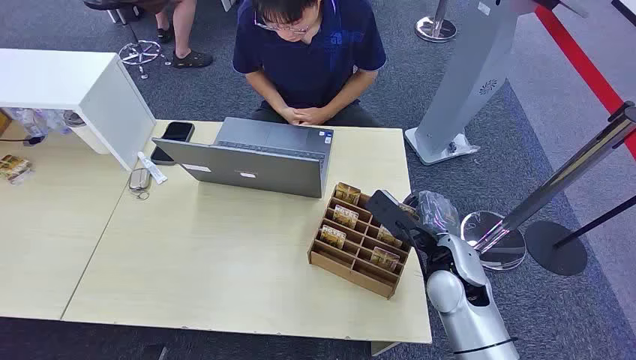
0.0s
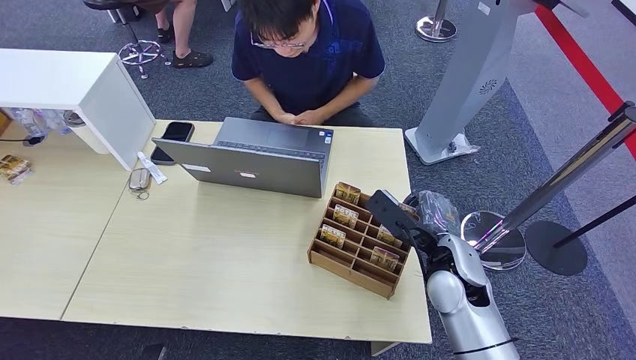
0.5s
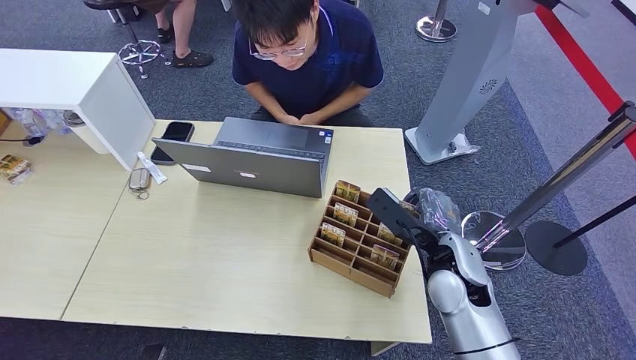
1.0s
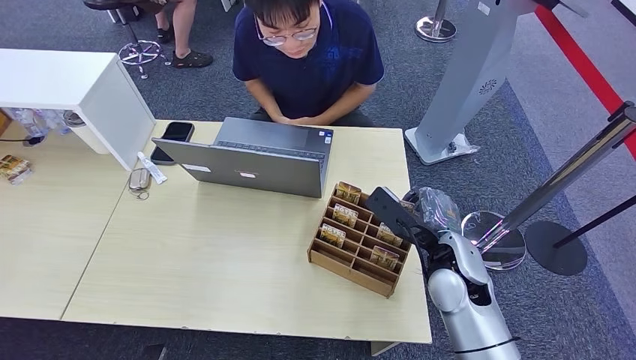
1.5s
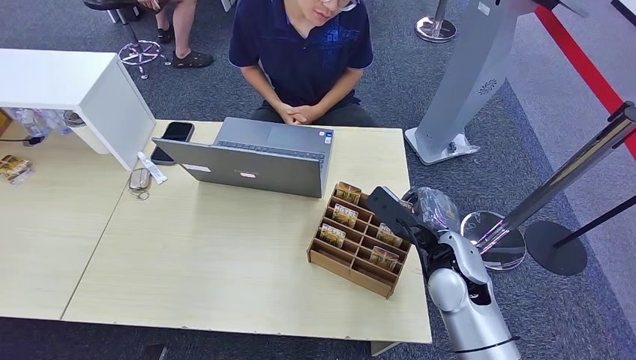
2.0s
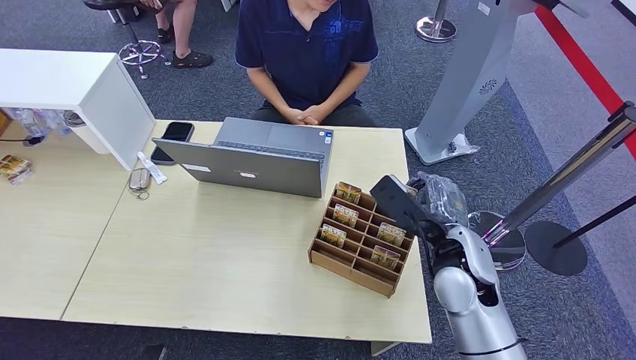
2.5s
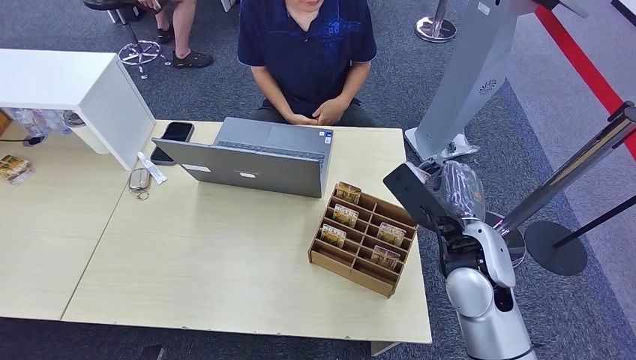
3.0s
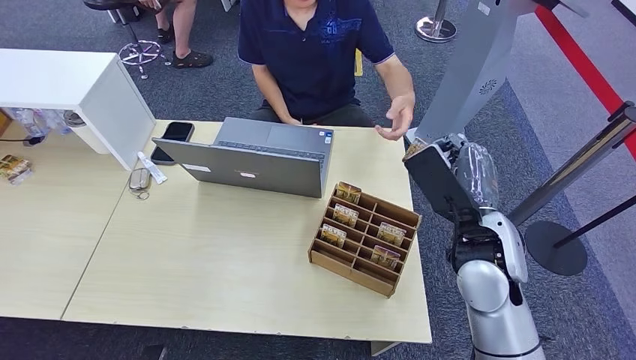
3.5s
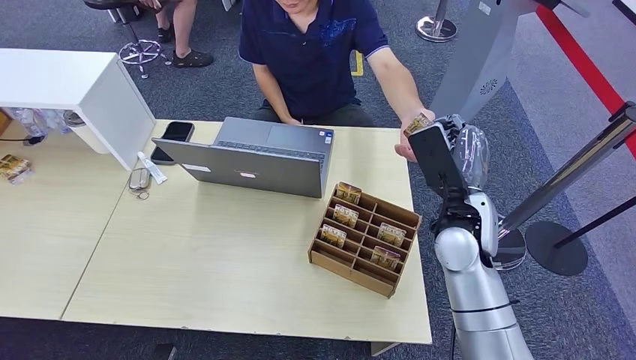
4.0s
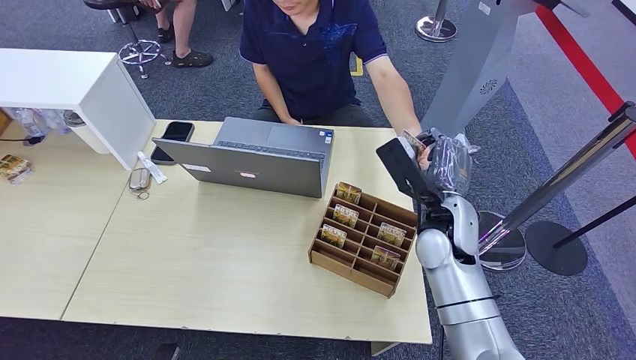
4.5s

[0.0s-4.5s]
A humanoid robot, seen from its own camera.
Step, 0.0s to 2.5s: Pick up the key card from the card box.
Step, 4.0s to 4.5s: Hand the key card to the target.
2.0s to 4.5s: The right hand moves roughly 5 cm.

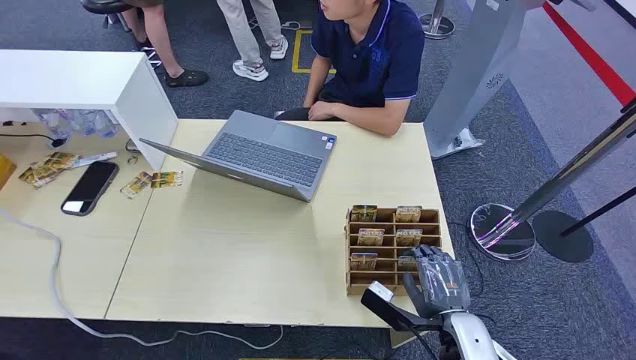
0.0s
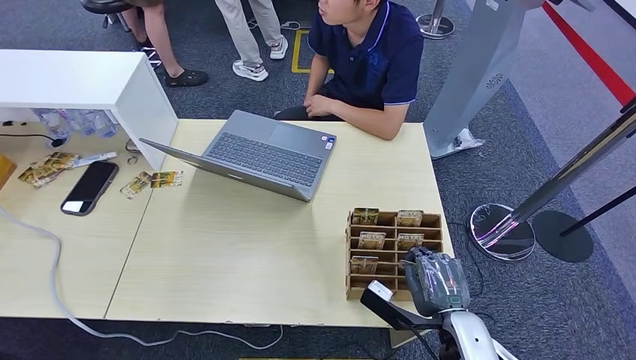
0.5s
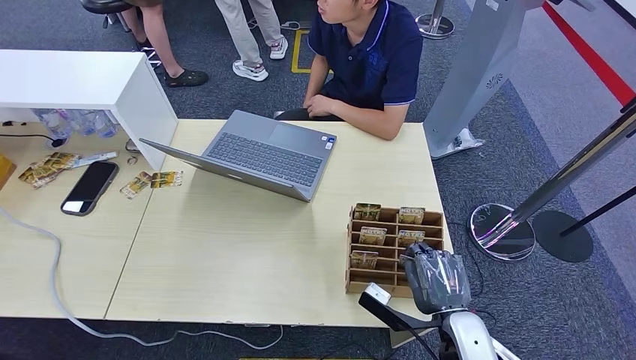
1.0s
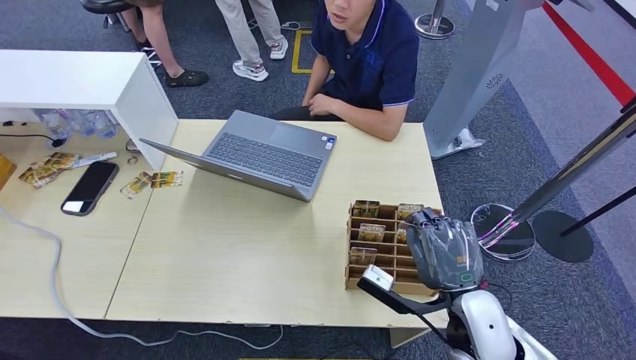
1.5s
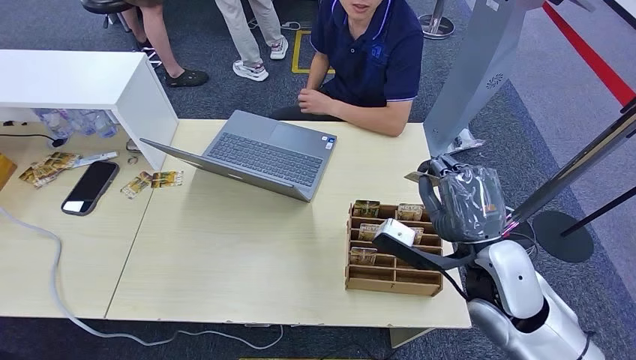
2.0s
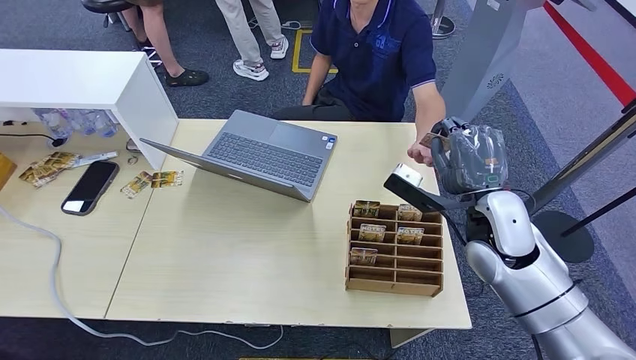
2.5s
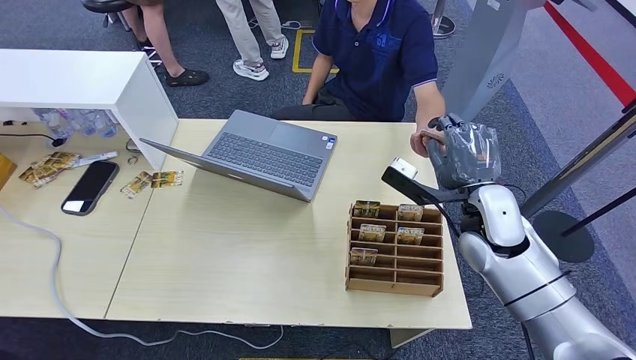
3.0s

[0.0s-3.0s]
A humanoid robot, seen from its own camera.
Step, 0.0s to 1.5s: Pick up the key card from the card box.
Step, 2.0s to 3.0s: Hand the key card to the target.
1.5s to 3.0s: The right hand heads forward, covering about 15 cm.

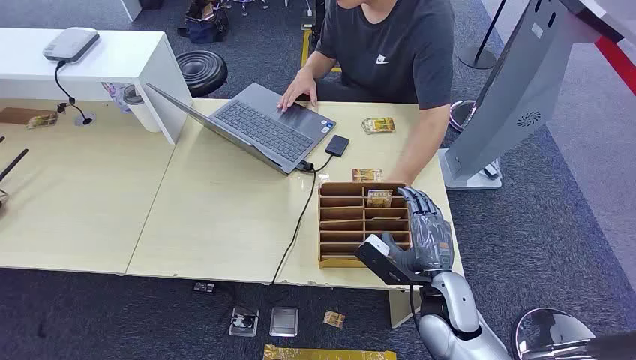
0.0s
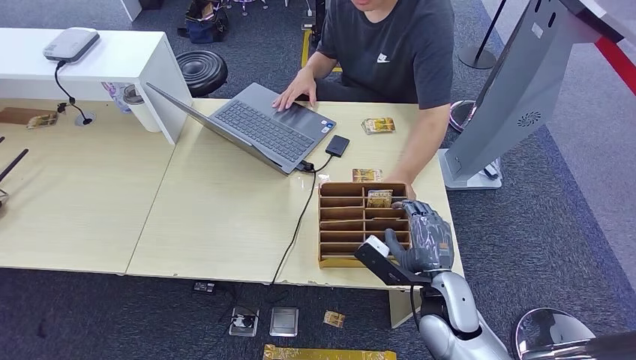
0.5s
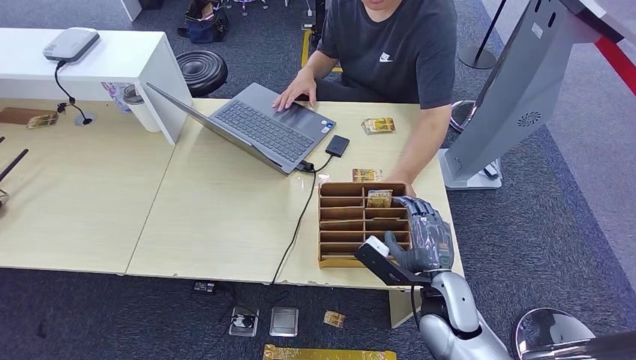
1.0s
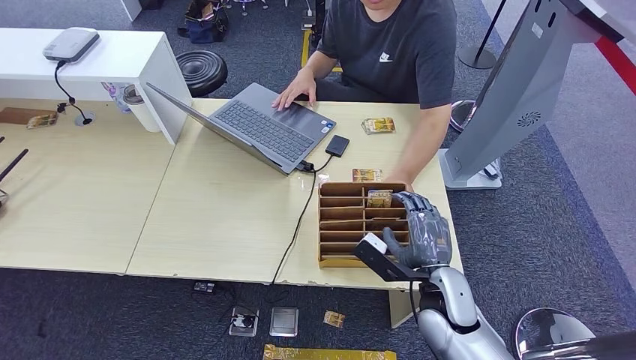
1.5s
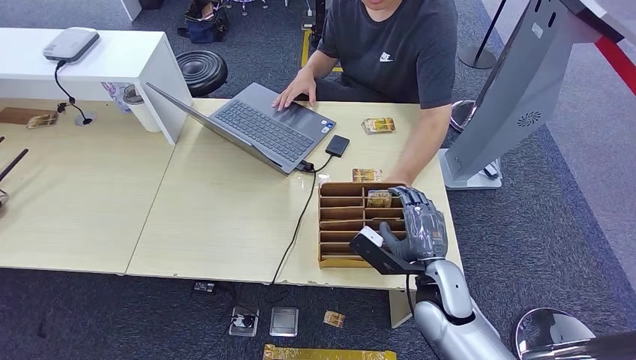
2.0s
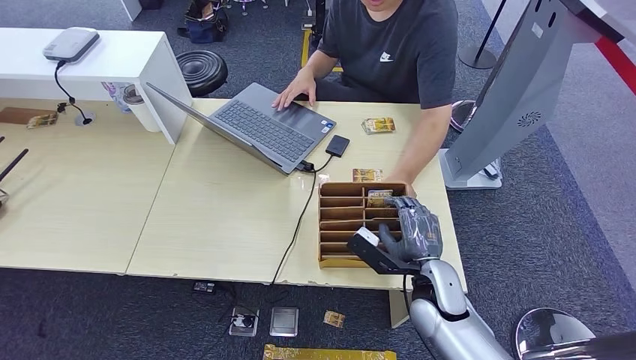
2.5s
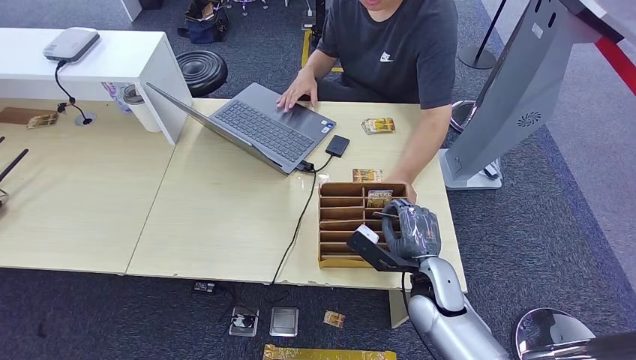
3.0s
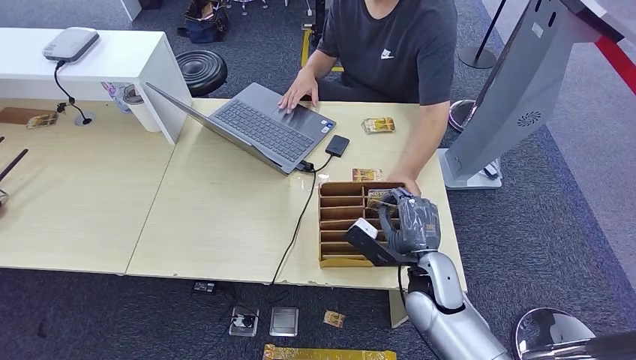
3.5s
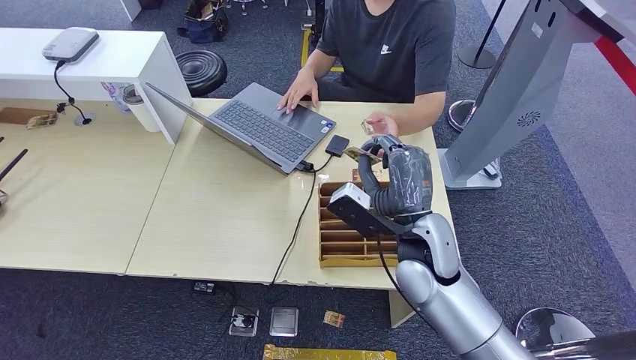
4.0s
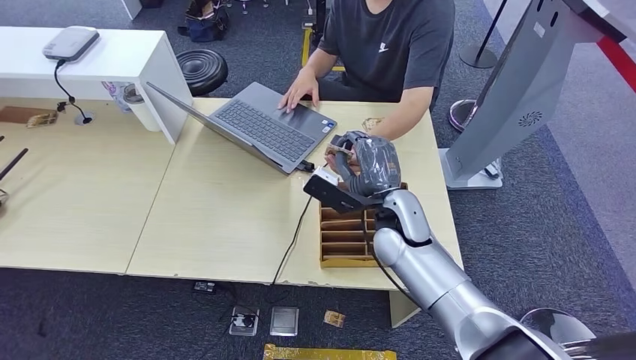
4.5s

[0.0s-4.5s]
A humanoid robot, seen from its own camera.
Step, 0.0s to 3.0s: Pick up the key card from the card box.
Step, 3.5s to 4.5s: Hand the key card to the target.
2.0s to 4.5s: The right hand heads forward, upward and to the left, covering some 15 cm.
